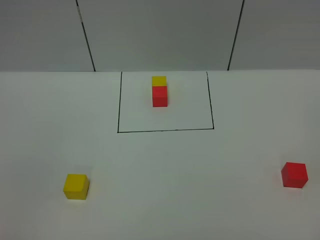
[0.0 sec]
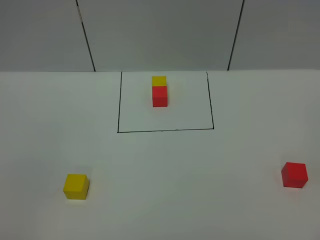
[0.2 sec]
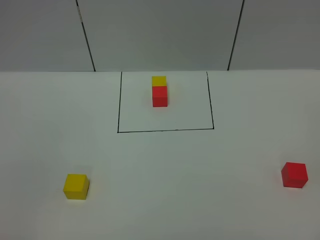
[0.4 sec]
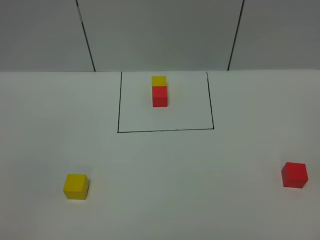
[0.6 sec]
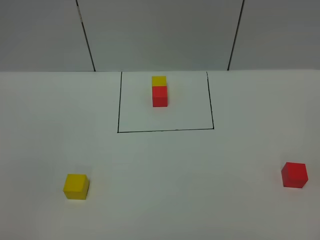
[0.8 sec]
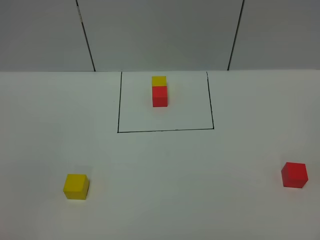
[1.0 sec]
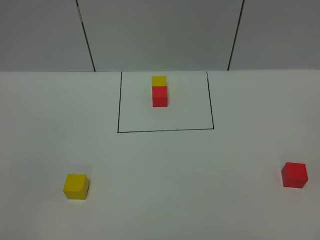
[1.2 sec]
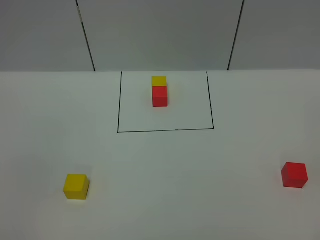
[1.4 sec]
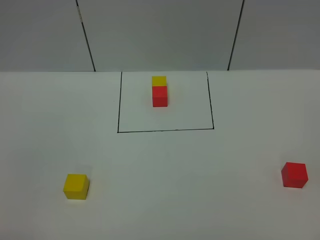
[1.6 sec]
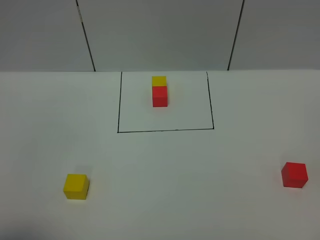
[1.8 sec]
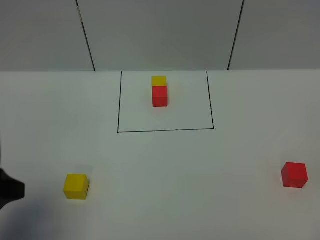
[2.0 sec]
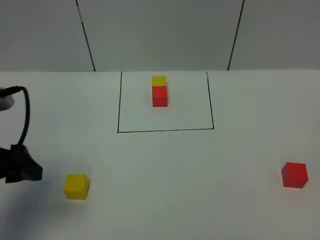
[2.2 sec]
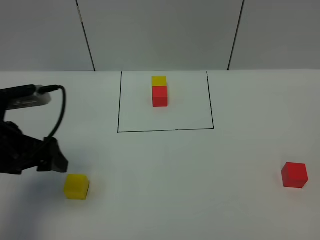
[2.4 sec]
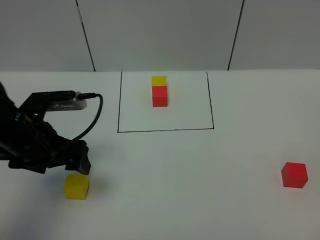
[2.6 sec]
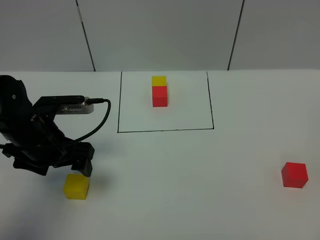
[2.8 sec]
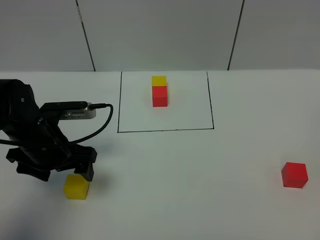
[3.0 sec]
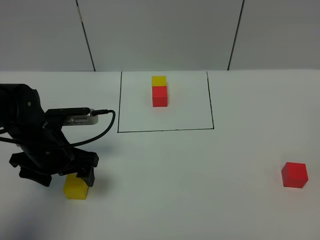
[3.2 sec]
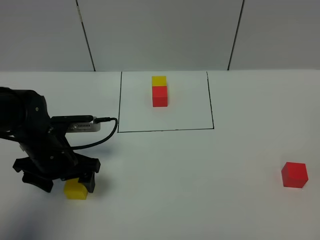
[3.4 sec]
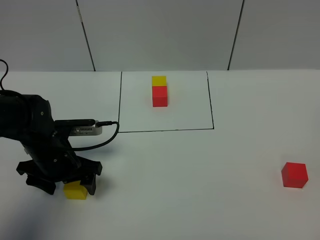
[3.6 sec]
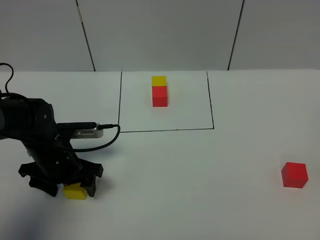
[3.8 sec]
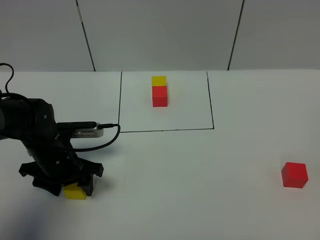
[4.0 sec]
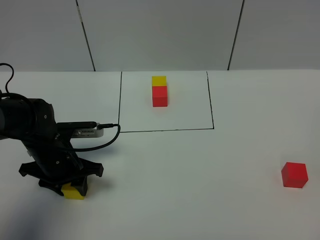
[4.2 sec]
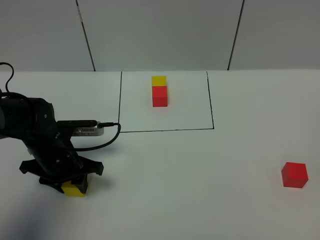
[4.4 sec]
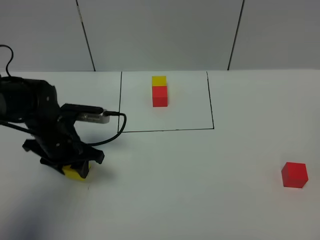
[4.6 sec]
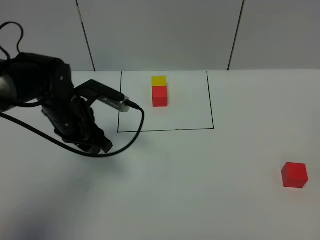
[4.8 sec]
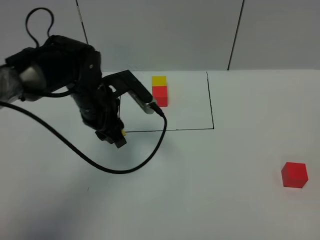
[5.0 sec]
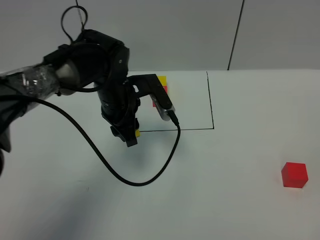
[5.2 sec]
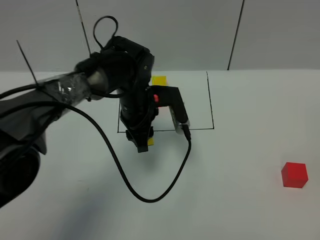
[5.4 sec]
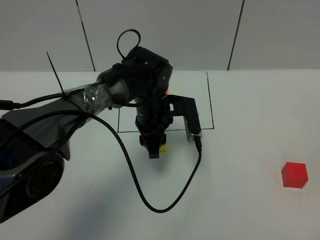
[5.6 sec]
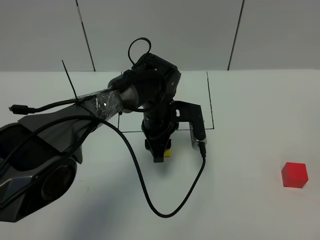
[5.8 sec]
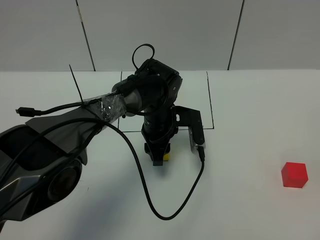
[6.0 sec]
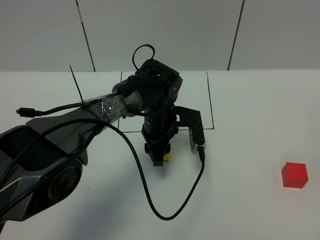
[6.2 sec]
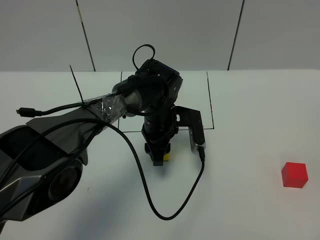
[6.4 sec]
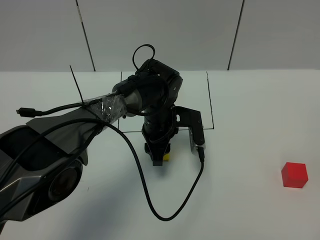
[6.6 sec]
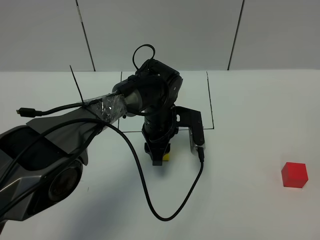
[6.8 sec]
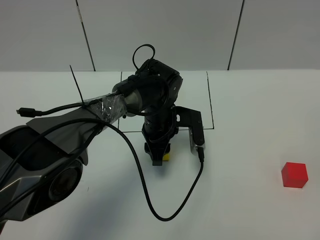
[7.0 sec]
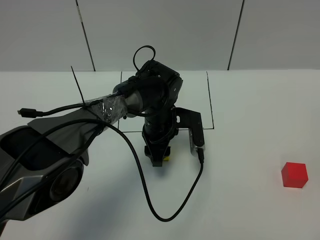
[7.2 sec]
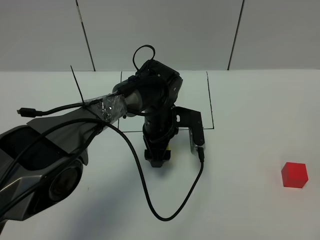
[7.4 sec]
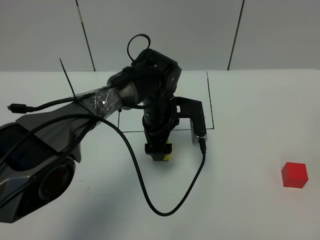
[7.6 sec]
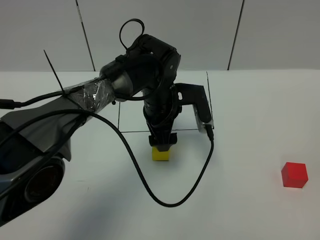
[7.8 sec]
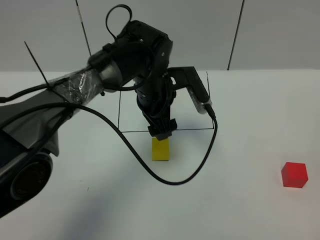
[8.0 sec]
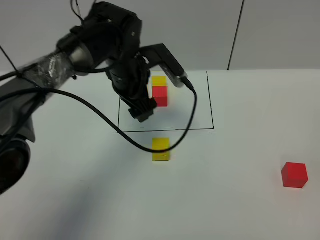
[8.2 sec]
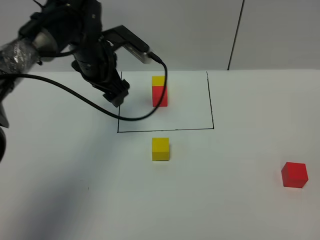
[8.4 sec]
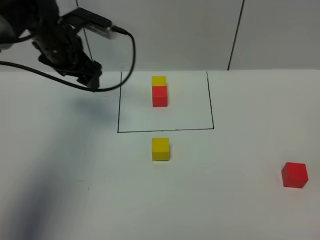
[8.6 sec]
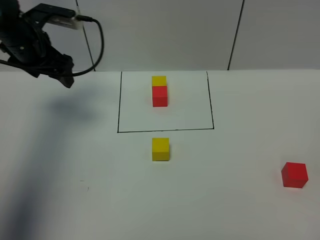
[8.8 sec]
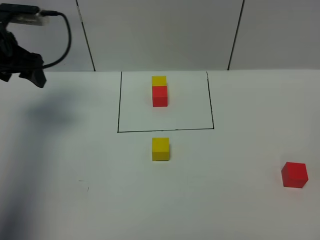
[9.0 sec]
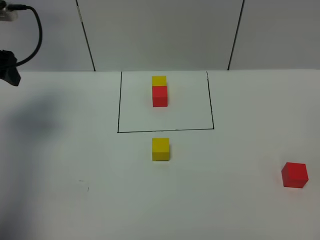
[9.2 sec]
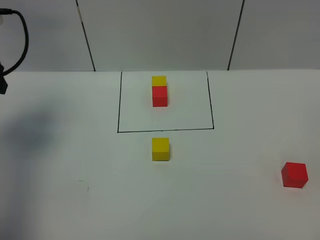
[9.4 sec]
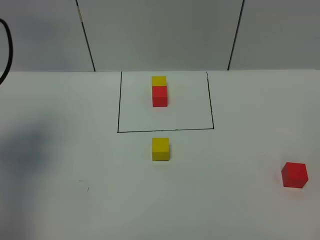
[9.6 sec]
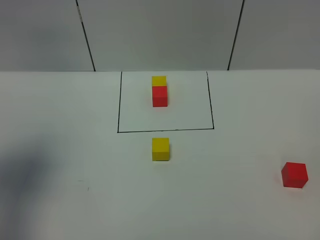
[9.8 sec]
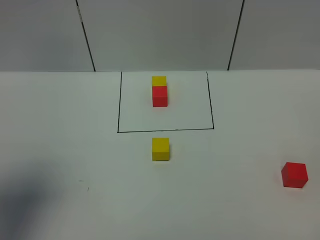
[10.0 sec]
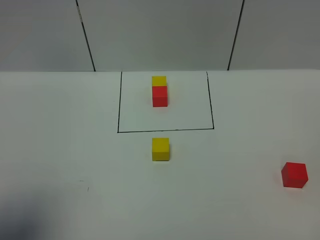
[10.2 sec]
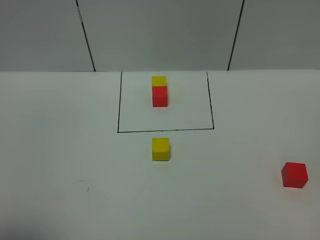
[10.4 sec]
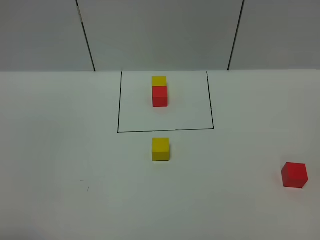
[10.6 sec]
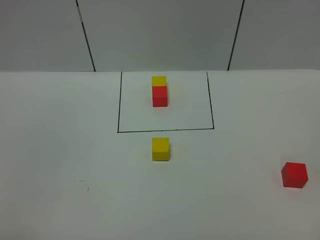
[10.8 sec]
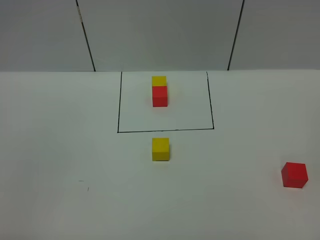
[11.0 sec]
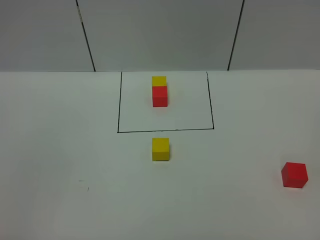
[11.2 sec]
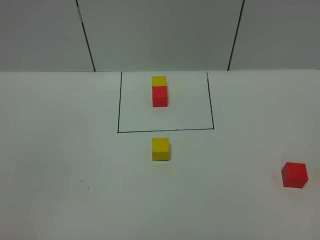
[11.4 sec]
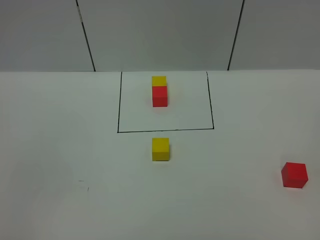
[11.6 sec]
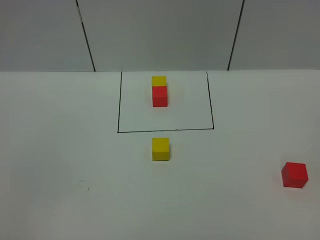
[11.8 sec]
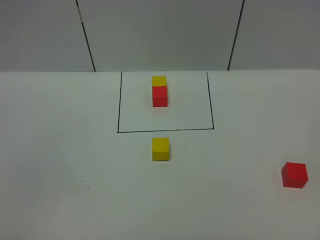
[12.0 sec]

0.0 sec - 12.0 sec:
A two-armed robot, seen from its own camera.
Task of the whole recording: According to the building block template in front, assemble the scattered blocks together.
Step, 2.0 sec - 8.2 sec: Put the yellow cube in the center of the table.
1.6 sec - 3.0 sec: The left gripper moves forward and downward, about 30 cm.
3.0 sec - 4.4 sec: The left gripper is displaced downward by roughly 5 cm, and closes its fingers.
4.4 sec - 6.0 sec: The left gripper heads to the right and forward, covering some 20 cm.
6.0 sec - 7.6 sec: The left gripper opens up.
7.6 sec - 9.0 sec: The left gripper travels to the left and upward by roughly 35 cm.
9.0 sec - 10.4 sec: The left gripper moves backward, roughly 35 cm.

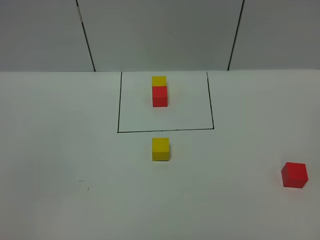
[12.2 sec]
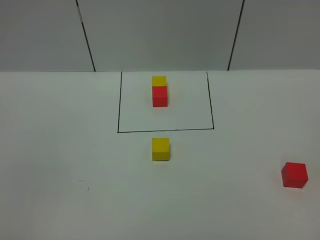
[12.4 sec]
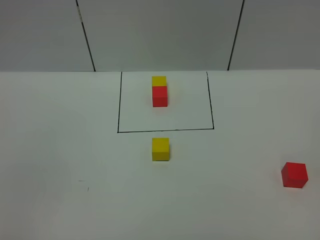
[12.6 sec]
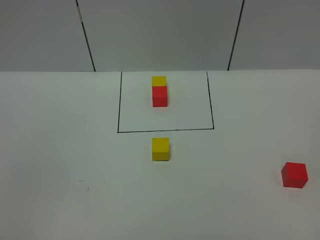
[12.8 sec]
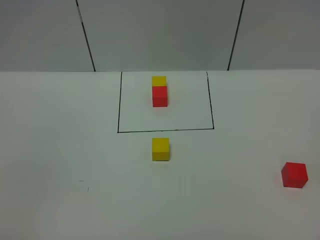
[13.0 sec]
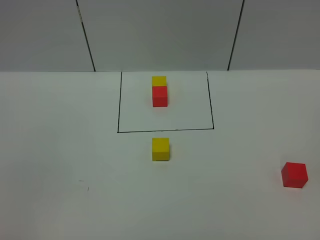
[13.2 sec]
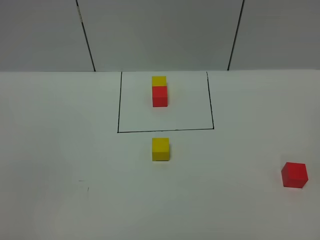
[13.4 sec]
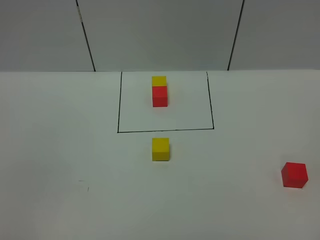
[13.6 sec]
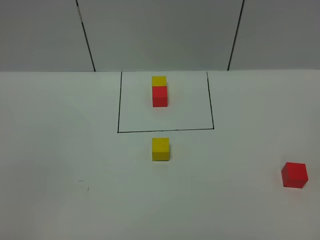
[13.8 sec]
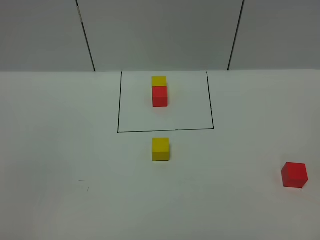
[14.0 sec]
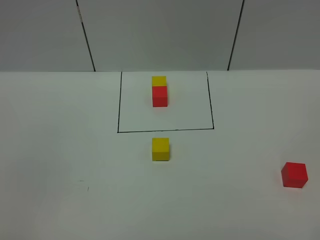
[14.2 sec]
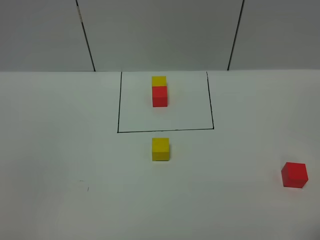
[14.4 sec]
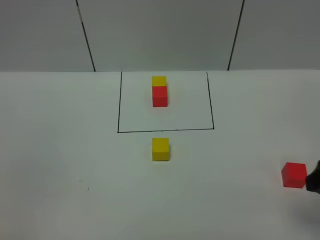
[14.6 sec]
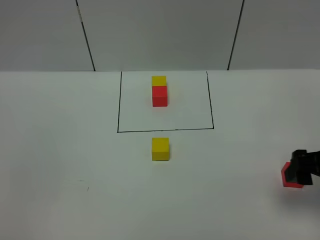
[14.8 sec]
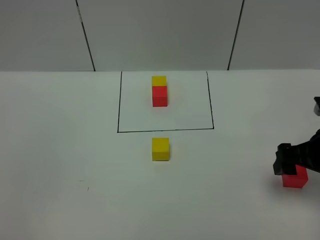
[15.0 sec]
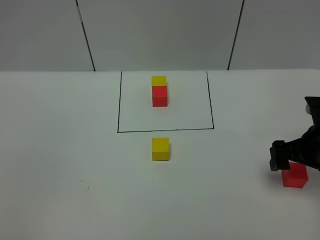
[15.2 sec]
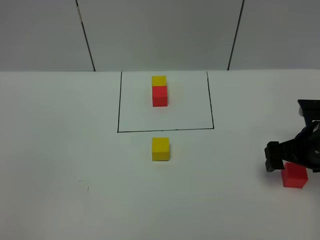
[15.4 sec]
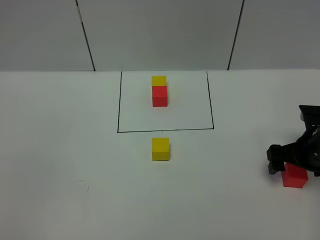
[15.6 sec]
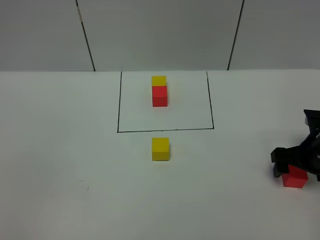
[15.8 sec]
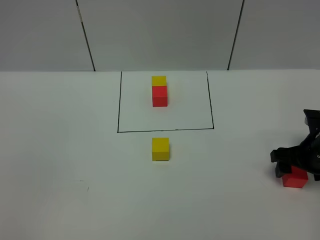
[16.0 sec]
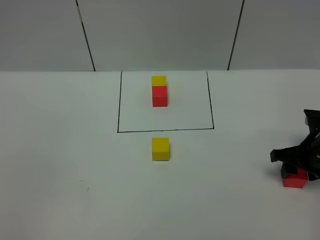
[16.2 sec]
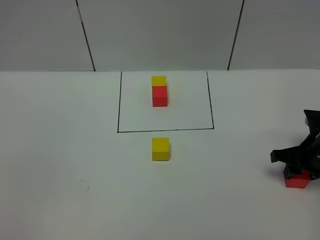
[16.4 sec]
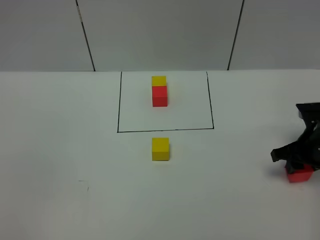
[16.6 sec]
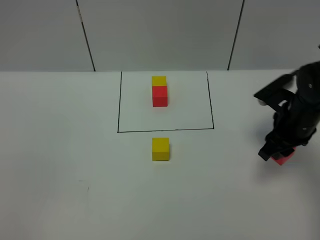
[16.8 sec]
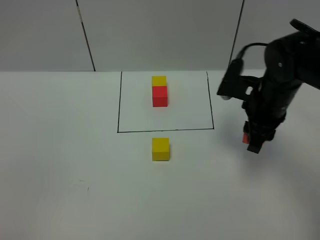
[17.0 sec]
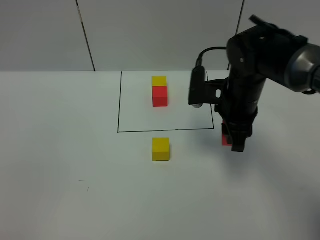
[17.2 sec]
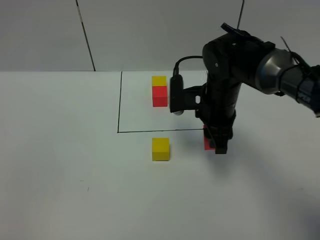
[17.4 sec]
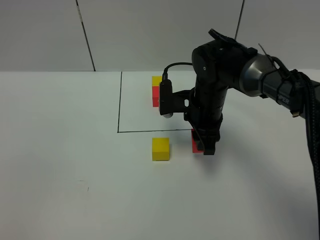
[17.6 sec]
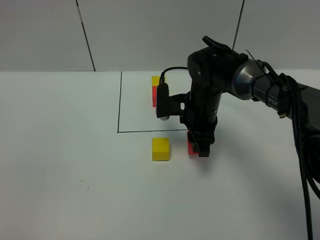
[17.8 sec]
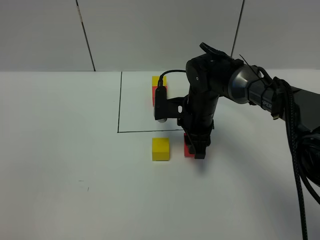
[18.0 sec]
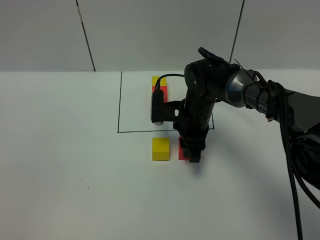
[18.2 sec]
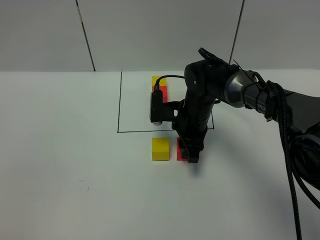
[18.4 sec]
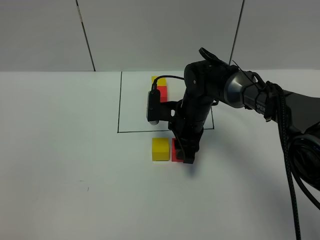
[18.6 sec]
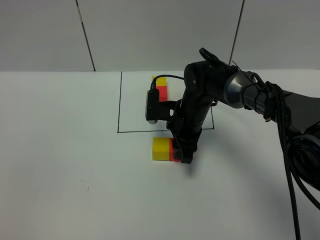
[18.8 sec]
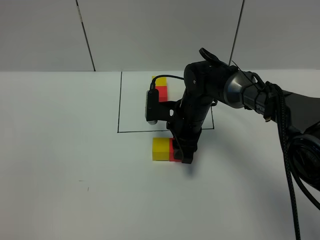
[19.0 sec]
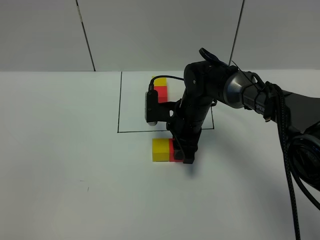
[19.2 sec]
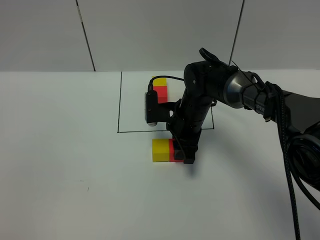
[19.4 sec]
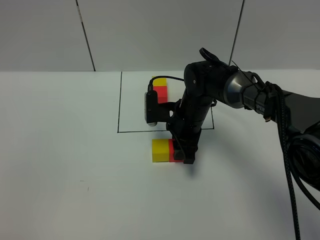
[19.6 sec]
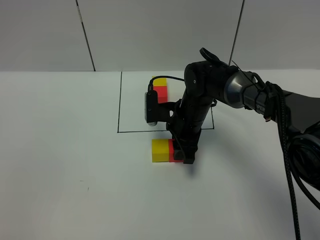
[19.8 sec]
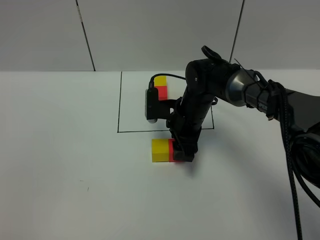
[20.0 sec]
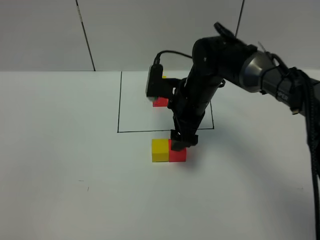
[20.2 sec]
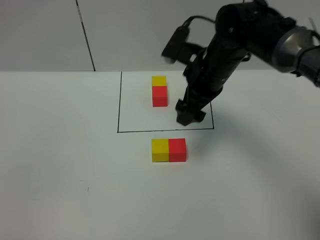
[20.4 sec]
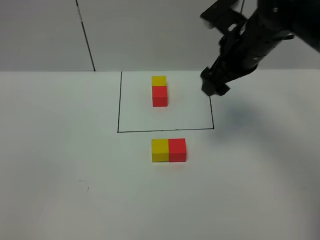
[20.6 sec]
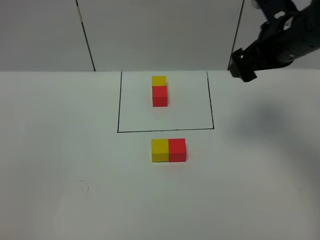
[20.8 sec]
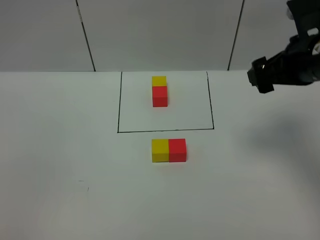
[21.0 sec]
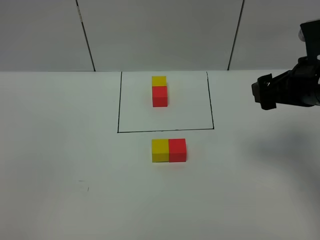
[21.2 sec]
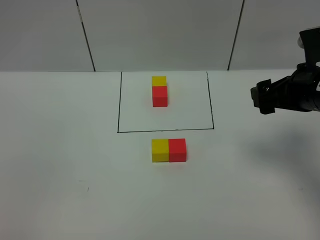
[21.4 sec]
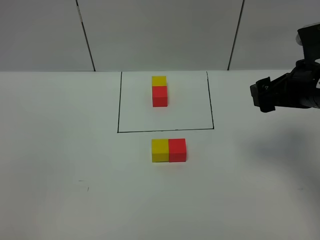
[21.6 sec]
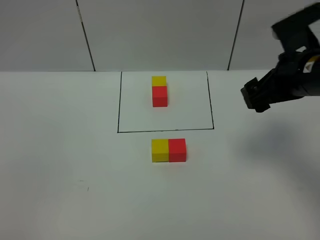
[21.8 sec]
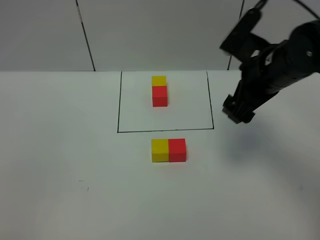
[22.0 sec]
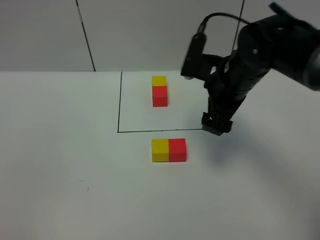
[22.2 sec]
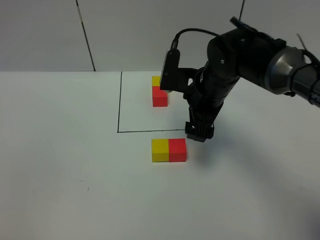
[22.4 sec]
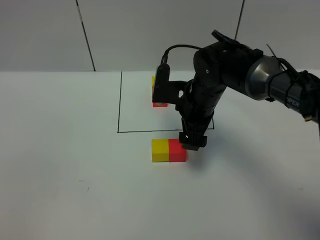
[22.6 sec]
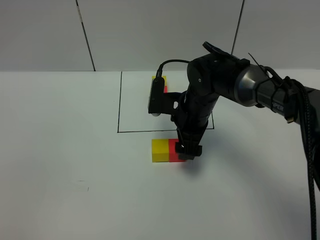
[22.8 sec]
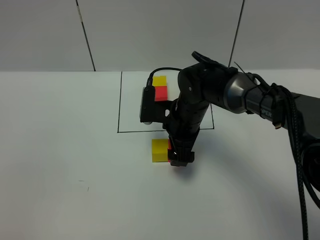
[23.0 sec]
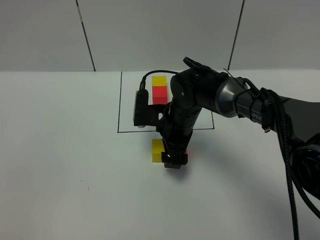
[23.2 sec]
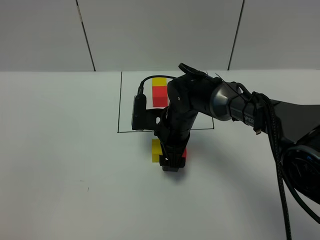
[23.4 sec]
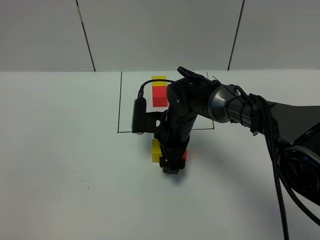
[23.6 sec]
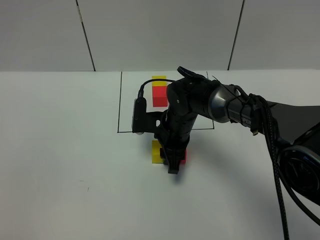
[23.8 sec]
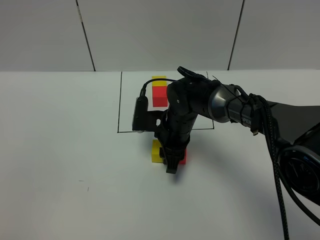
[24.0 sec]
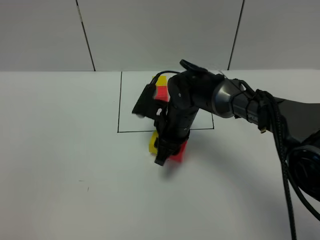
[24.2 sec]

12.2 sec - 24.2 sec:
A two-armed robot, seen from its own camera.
Task of the whole recording: According to the building block template in front, assemble the scattered blocks together.
Step, 12.2 sec - 20.8 sec: Put the red cube on the right of the yellow cube.
12.2 sec - 13.8 sec: Neither gripper changes place.
13.8 sec - 15.2 sec: The right gripper is displaced forward by roughly 30 cm.
15.2 sec - 16.6 sec: The right gripper ends up some 5 cm from where it was, and closes its fingers.
16.6 sec - 18.2 sec: The right gripper is displaced to the left by some 20 cm.
18.2 sec - 19.8 sec: The grippers make only small movements.
19.8 sec - 21.2 sec: The right gripper shifts roughly 25 cm to the right, upward and backward, and opens up.
21.2 sec - 22.6 sec: The right gripper is displaced to the left, downward and forward by approximately 20 cm.
22.6 sec - 24.2 sec: The right gripper changes place by about 5 cm, and closes its fingers.
